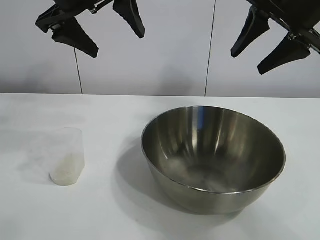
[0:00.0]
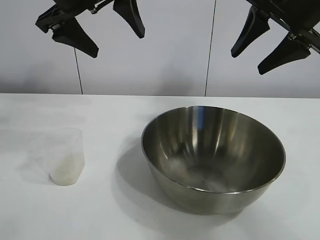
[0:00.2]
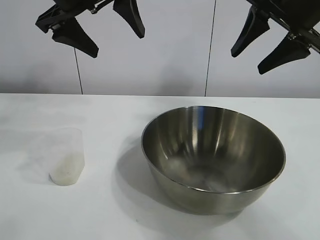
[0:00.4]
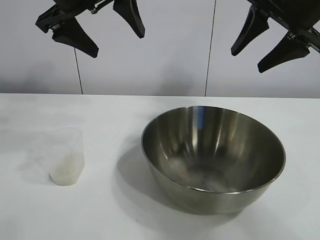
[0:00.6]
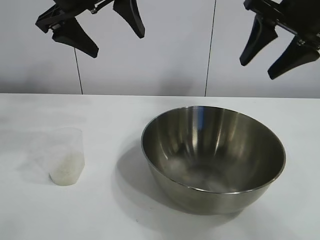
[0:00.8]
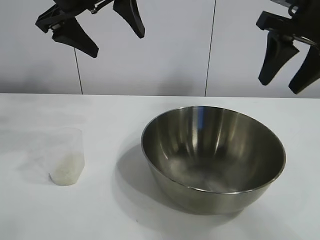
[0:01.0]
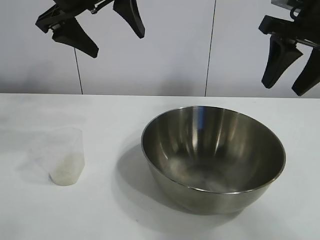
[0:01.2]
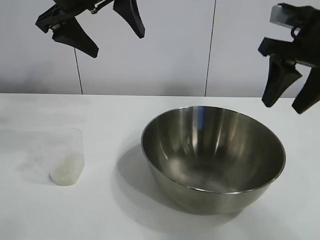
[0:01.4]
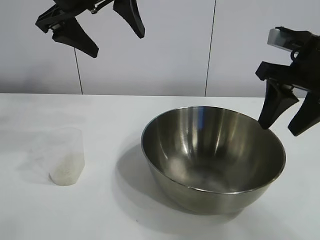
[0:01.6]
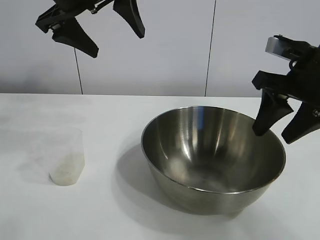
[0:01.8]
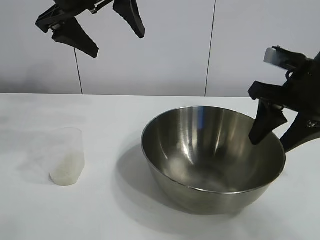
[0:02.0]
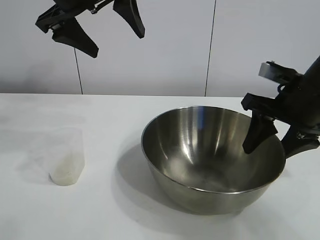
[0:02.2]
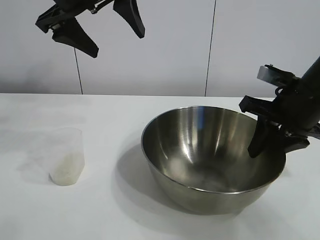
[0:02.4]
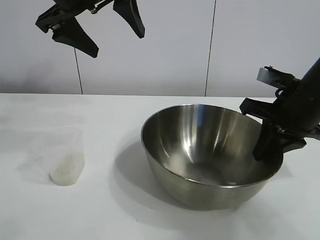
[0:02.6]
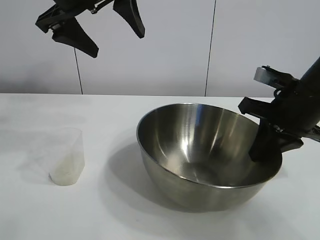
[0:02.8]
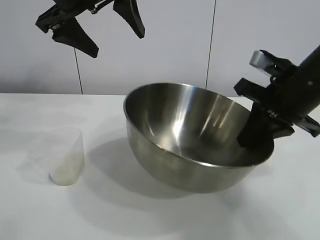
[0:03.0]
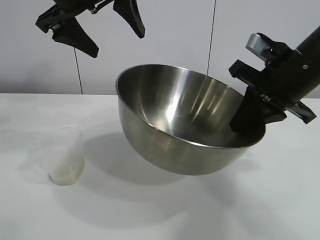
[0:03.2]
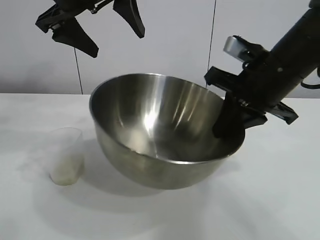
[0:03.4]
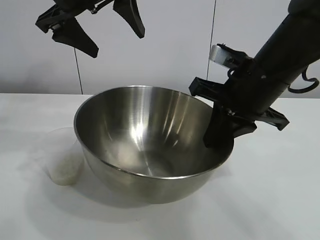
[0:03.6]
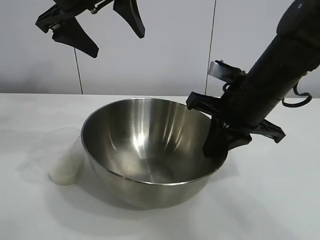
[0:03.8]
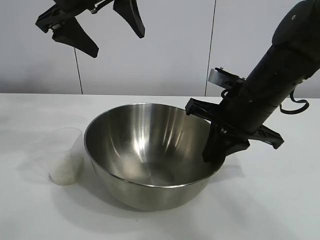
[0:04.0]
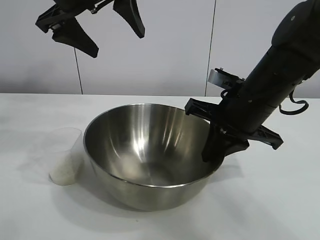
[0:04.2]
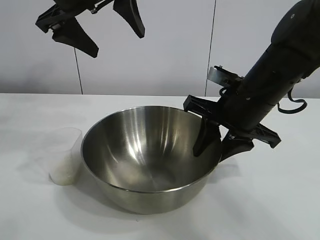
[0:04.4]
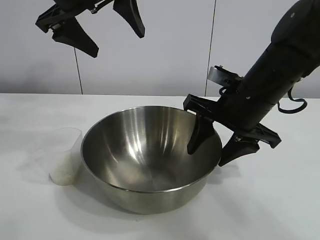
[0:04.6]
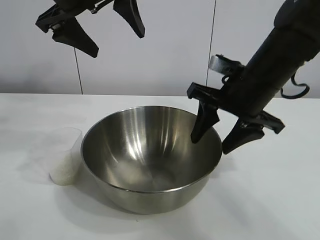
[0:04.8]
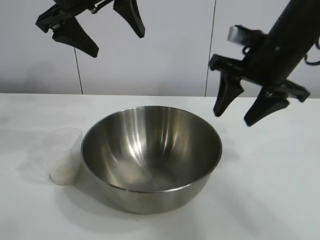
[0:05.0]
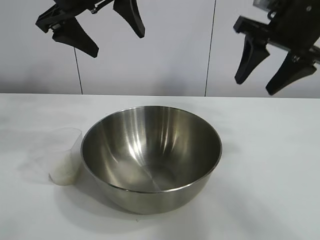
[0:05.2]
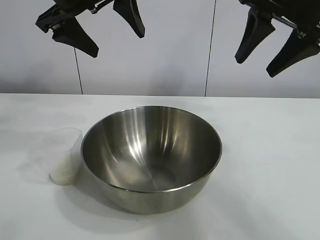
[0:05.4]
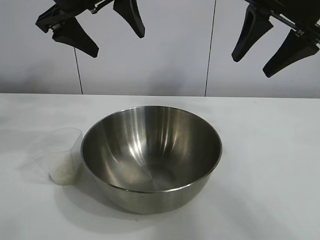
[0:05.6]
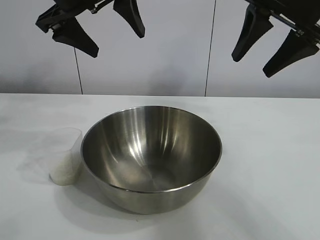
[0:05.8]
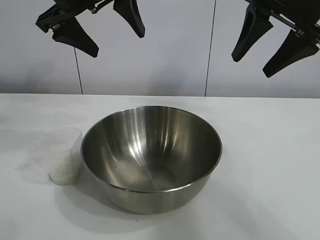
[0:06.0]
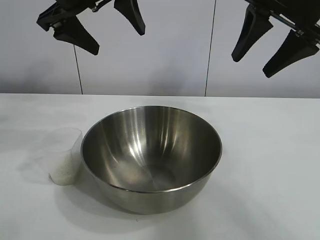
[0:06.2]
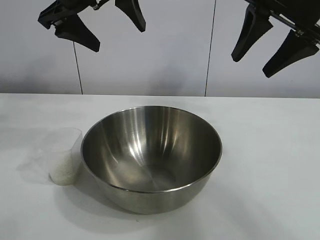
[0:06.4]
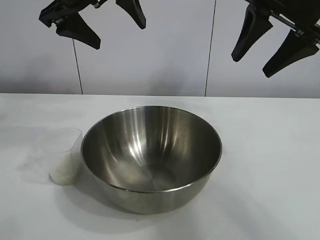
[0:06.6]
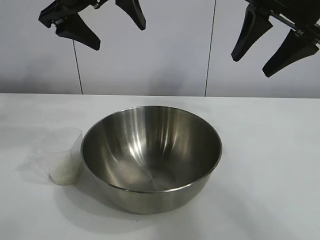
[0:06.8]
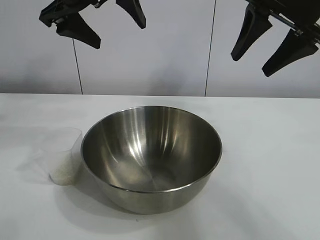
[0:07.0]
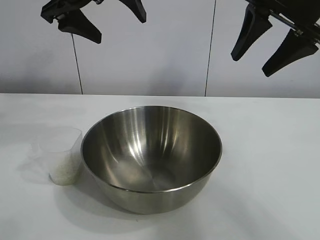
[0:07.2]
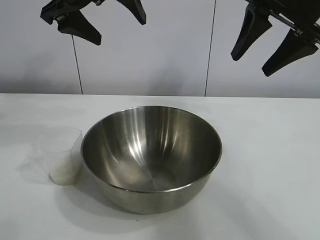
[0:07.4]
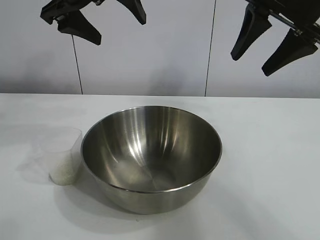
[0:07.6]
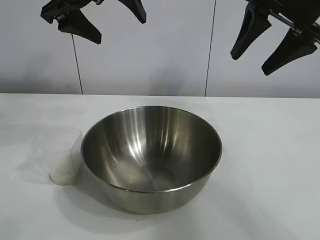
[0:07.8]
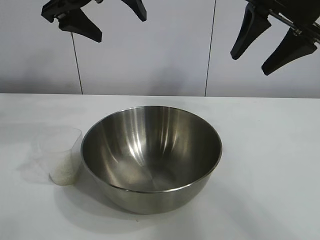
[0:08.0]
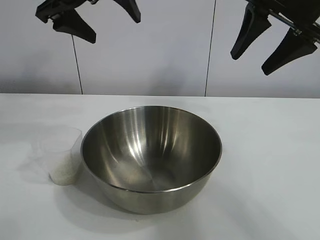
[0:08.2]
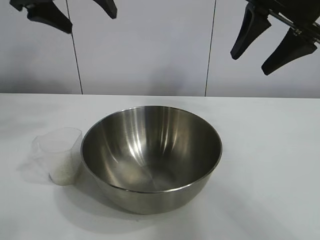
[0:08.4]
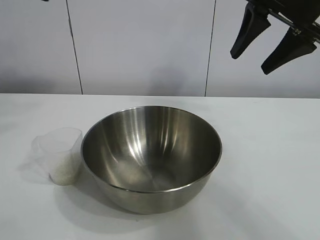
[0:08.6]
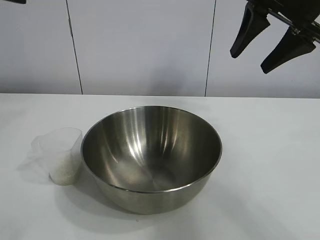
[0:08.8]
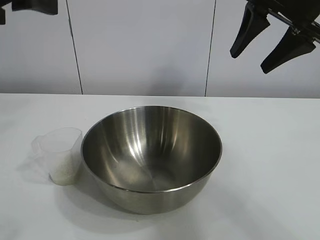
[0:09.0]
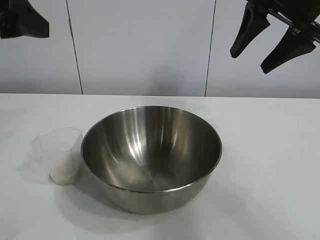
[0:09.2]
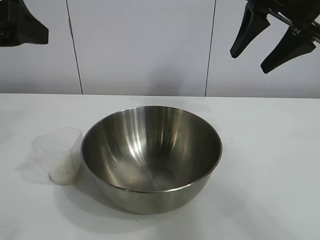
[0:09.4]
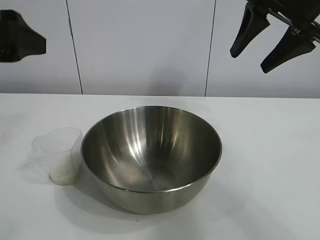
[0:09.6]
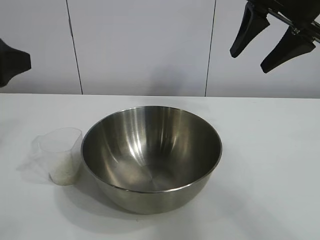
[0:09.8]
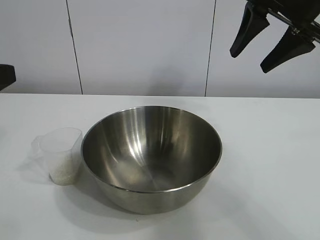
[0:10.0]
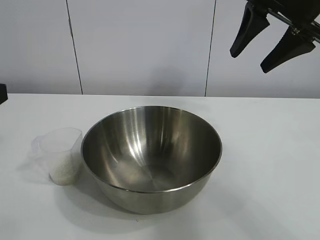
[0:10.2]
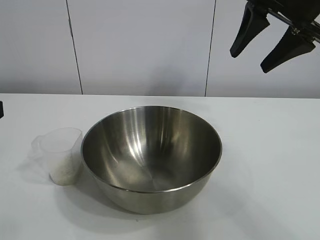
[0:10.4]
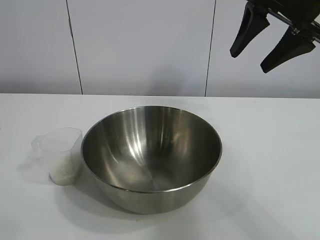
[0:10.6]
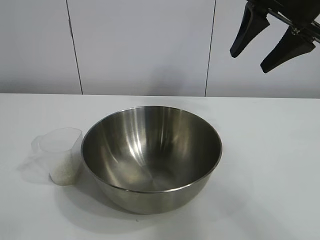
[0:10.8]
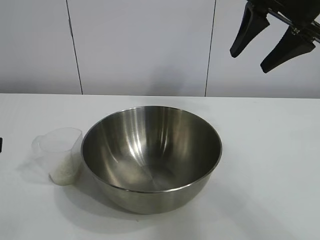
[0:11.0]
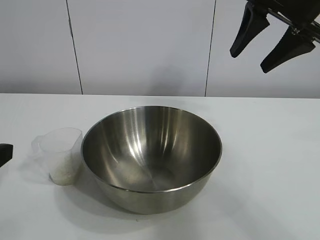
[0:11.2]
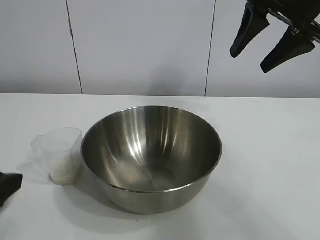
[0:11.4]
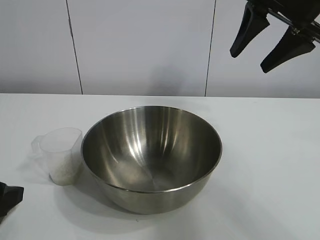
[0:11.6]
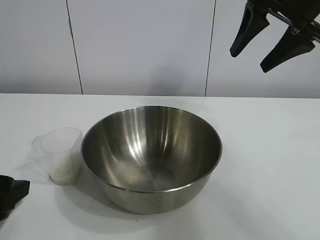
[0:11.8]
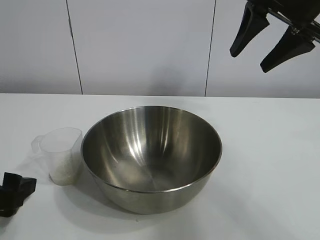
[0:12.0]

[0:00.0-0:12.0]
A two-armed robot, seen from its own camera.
Task of the whole recording: the right gripper grasp the rice container and place it in the center of the table, the left gripper grasp the rice scoop and pour the rice into the rice container.
Step, 0:00.8 to 0:04.4: Move the bowl in the center of view with right gripper.

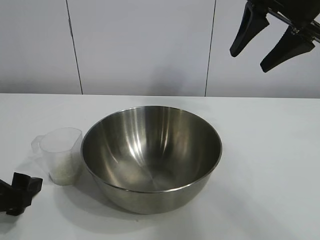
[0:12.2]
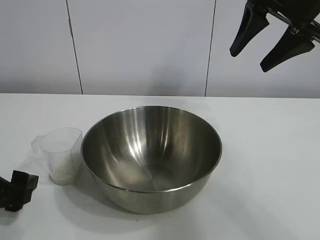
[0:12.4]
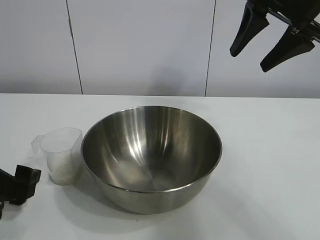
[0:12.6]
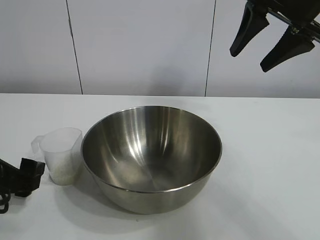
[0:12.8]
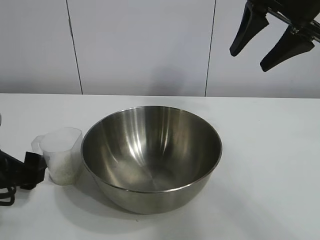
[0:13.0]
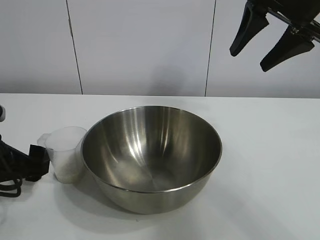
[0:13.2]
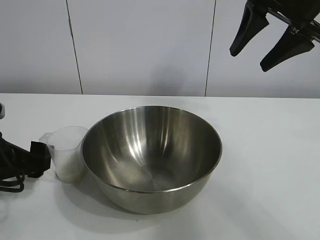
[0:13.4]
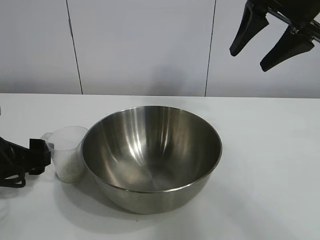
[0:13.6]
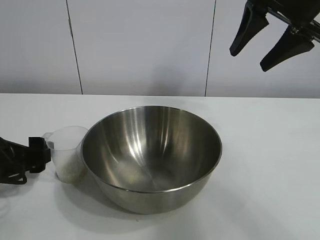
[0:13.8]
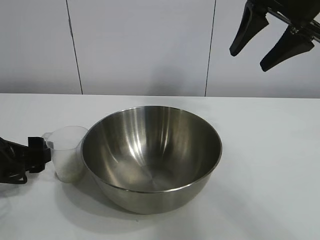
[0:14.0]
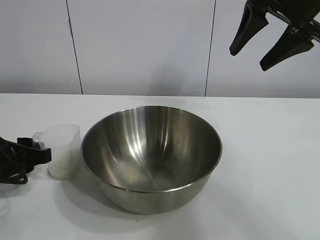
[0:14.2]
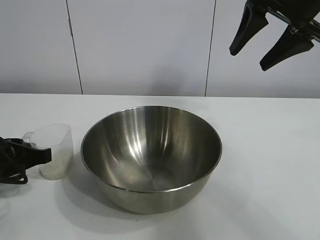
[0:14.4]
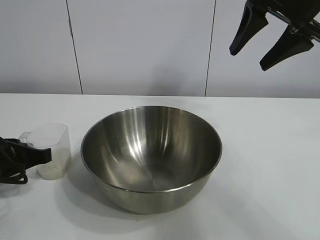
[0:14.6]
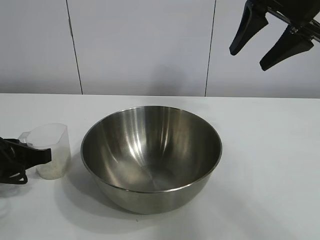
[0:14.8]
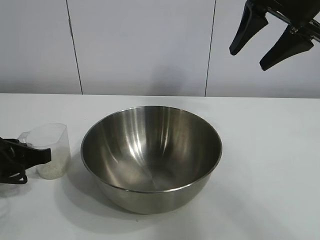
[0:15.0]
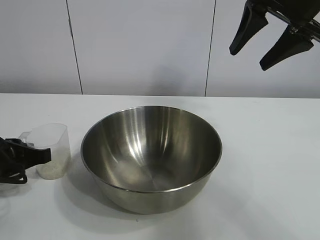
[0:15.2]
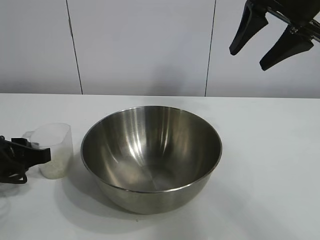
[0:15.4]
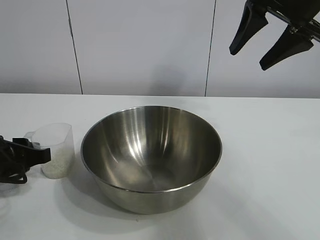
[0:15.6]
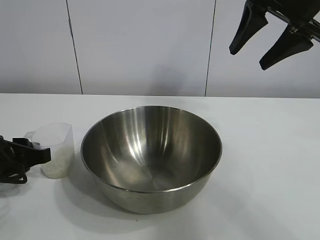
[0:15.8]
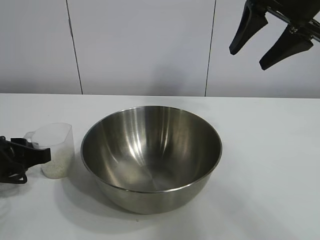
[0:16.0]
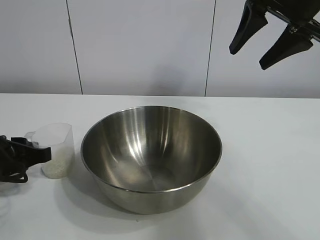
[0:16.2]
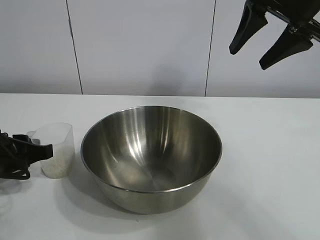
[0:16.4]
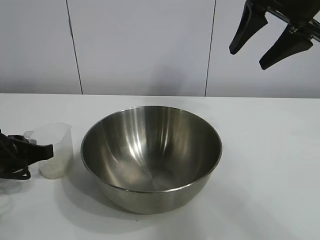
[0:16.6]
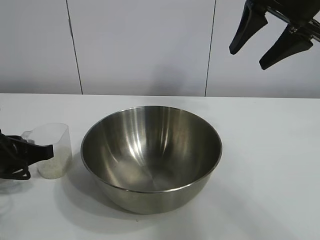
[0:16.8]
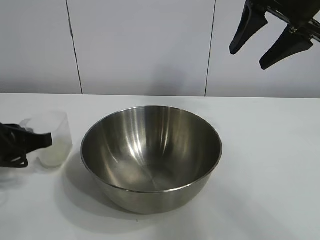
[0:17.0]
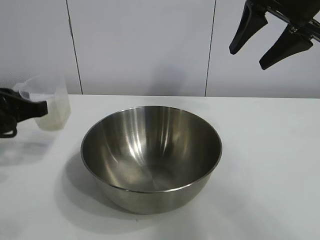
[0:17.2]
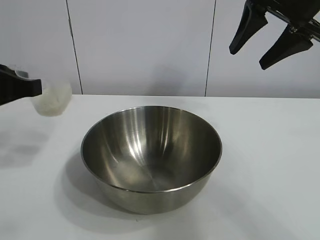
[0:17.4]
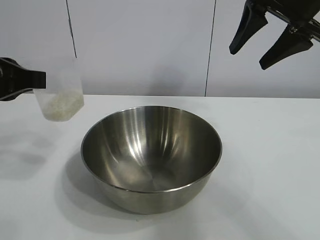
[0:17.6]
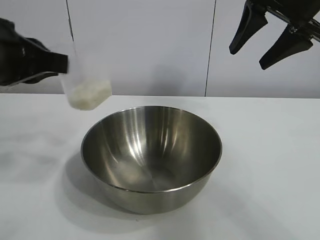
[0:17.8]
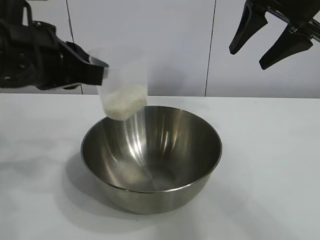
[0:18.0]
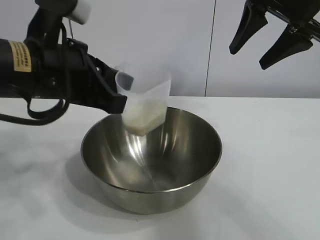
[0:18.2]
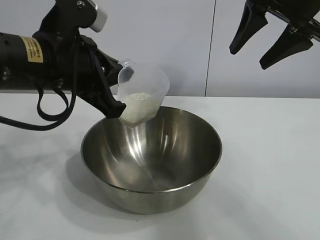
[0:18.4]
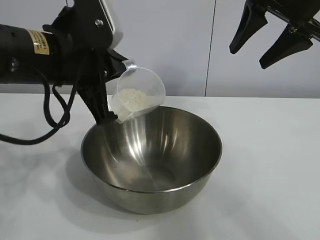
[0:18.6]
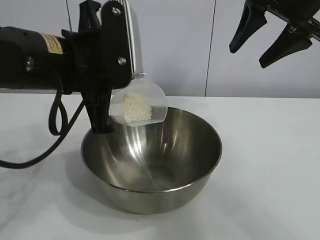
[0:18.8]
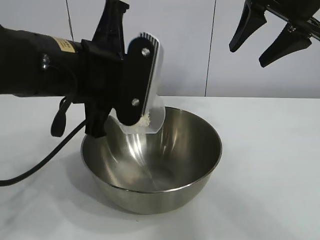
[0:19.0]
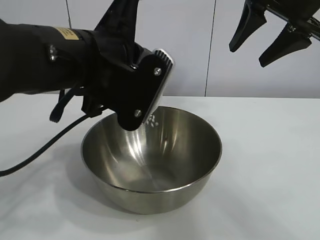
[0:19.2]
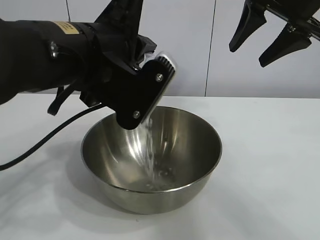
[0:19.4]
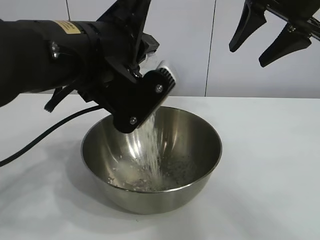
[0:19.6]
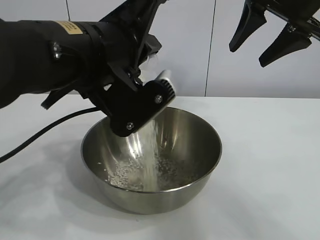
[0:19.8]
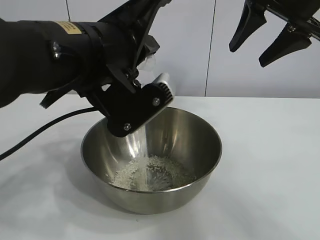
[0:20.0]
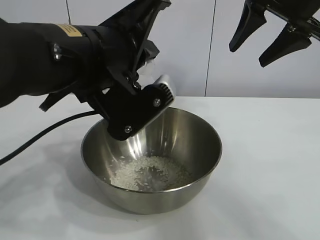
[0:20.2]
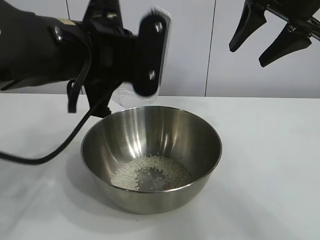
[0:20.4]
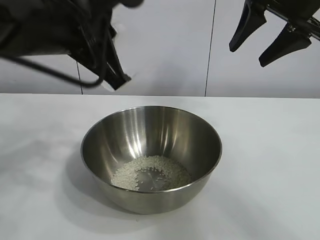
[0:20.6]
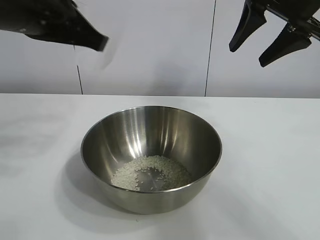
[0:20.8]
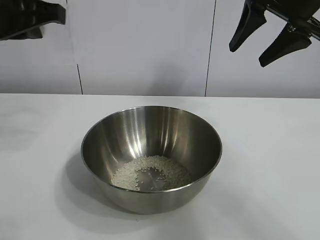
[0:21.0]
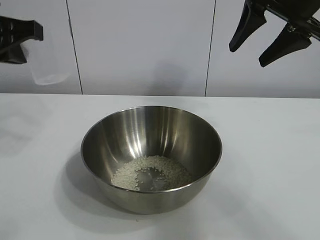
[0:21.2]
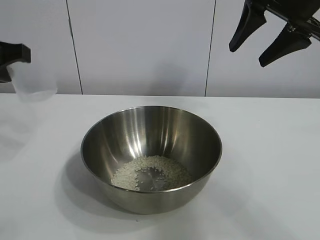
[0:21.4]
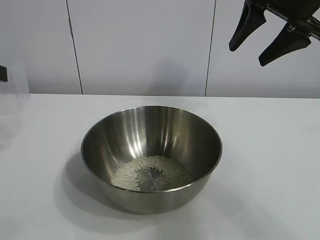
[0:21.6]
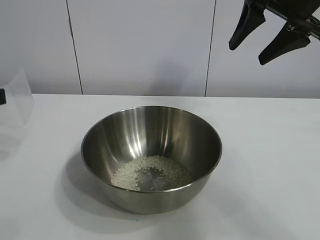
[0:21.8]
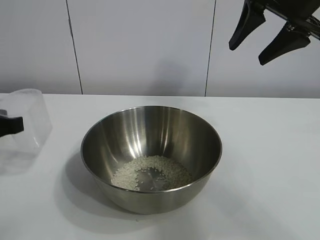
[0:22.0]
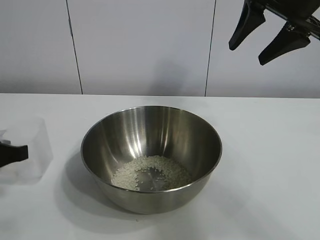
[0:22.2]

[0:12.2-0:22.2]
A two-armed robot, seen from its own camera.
Task of the whole recording: the right gripper grasp the rice container and place it in the center of the table, the left gripper grasp the rice scoop and pour the rice into the rice container.
Step, 0:12.2 to 0:16.8: Grasp the cup with rice in it with left gripper.
Step, 0:17.0 to 0:20.4: Pour the rice from the cup into the bowl with the left gripper.

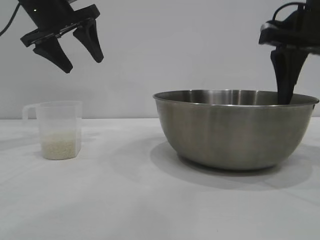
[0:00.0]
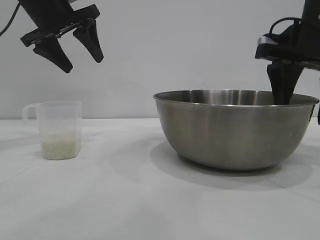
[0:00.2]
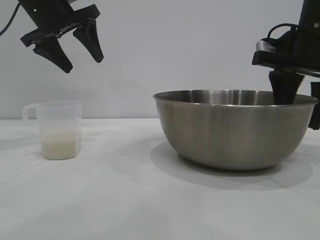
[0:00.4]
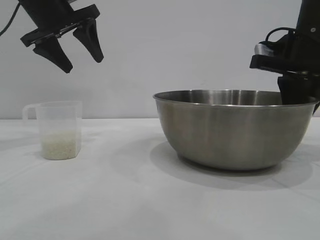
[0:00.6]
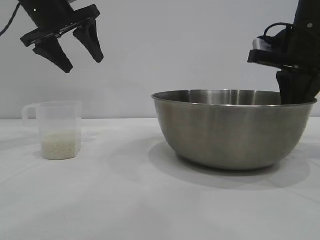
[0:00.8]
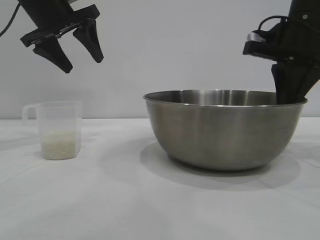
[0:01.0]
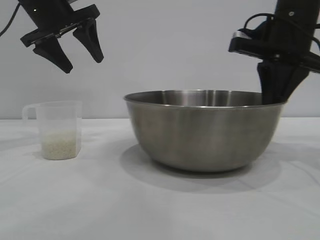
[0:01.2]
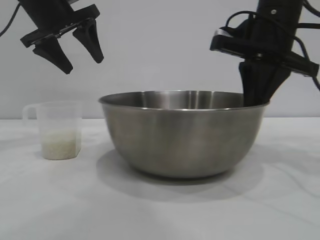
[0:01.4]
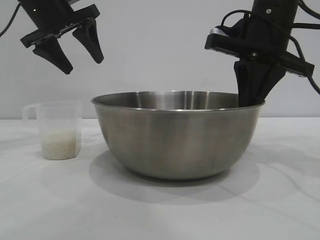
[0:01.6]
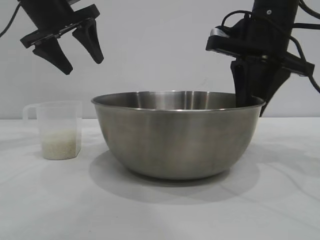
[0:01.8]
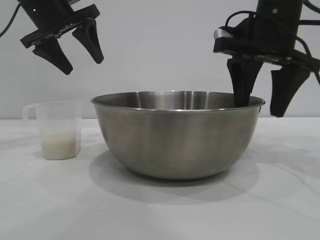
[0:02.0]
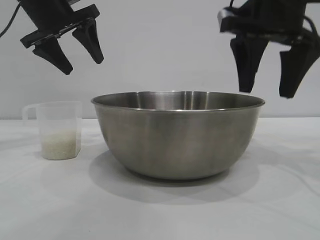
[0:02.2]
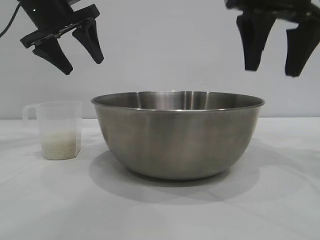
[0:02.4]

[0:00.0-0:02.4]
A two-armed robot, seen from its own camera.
Task of the whole recording: the right gripper grasp the rice container and place it in the center of the table, the left gripper grasp the rice scoop and pour the rice into the rice container.
Step, 0:00.0 to 0:02.0: Move the bowl to the center of view with the right gripper.
